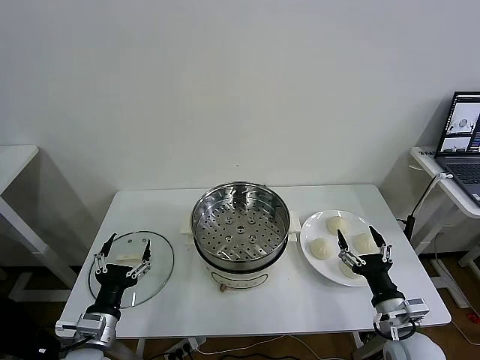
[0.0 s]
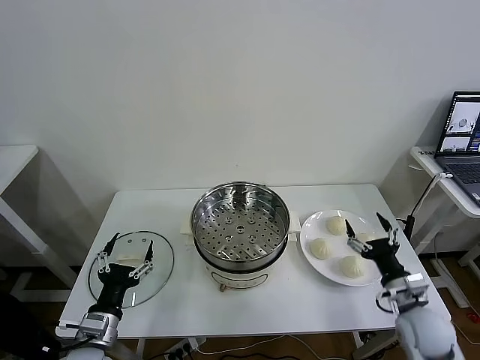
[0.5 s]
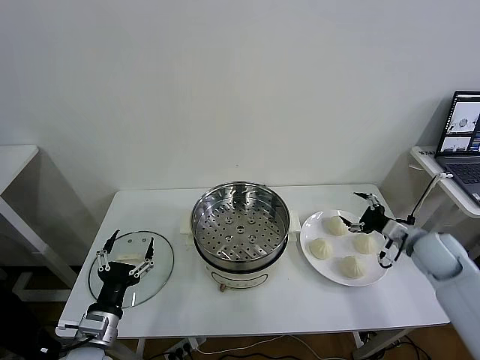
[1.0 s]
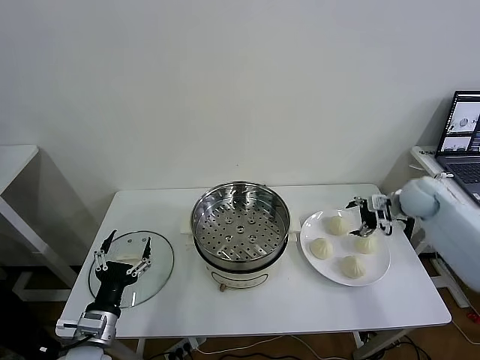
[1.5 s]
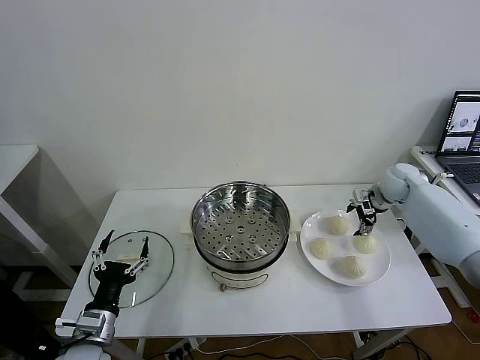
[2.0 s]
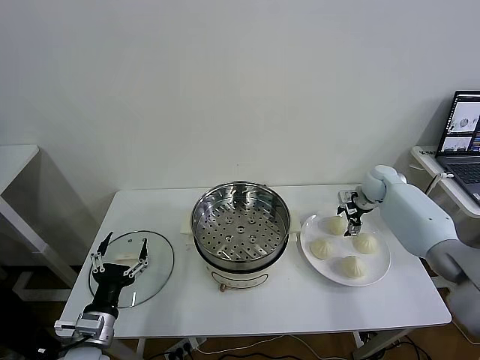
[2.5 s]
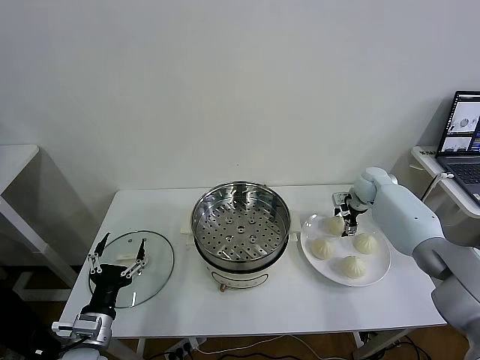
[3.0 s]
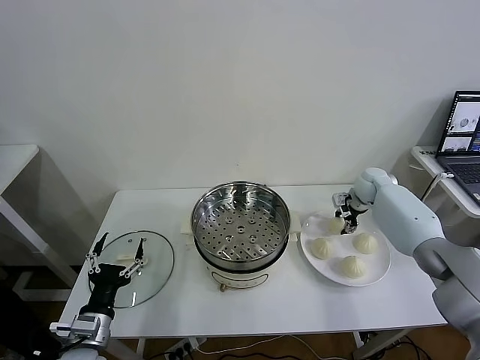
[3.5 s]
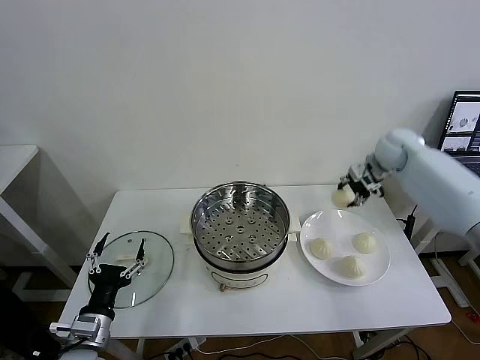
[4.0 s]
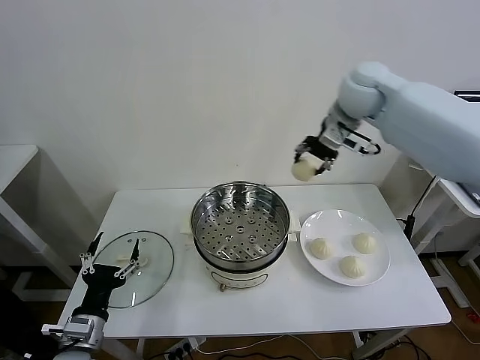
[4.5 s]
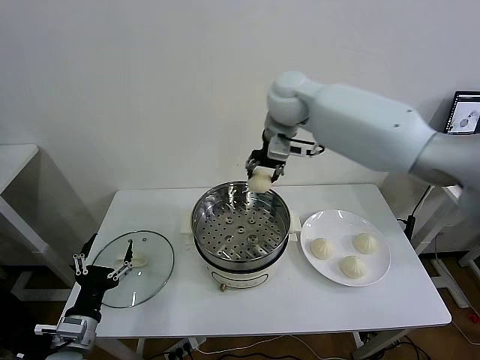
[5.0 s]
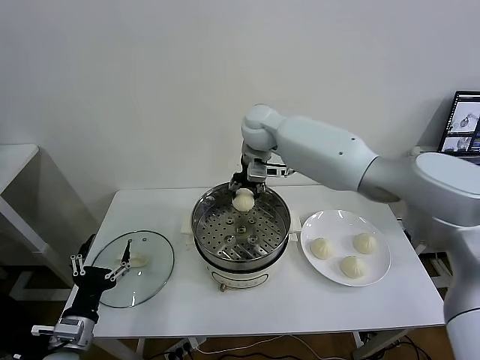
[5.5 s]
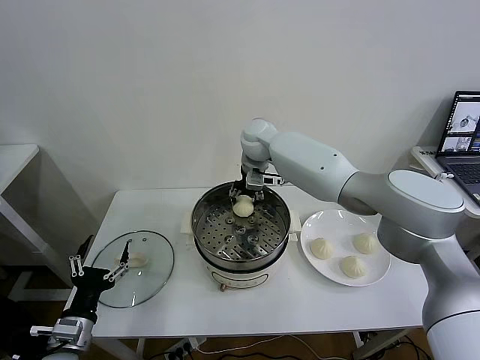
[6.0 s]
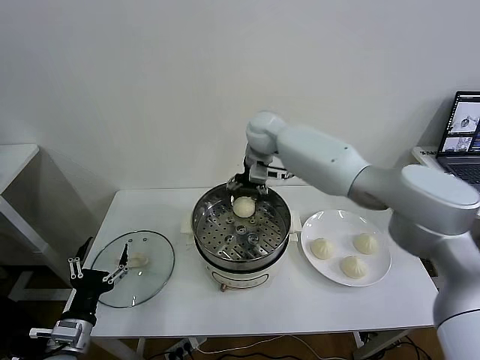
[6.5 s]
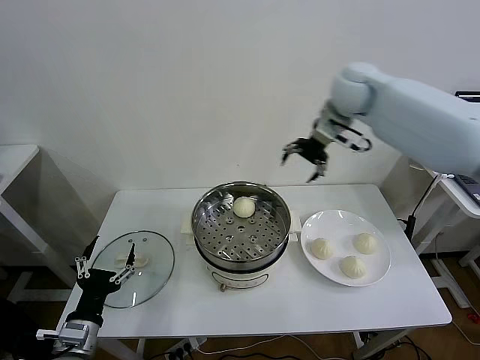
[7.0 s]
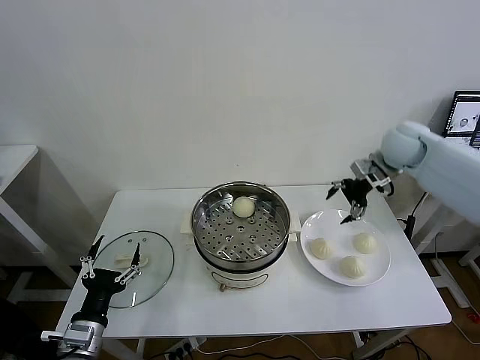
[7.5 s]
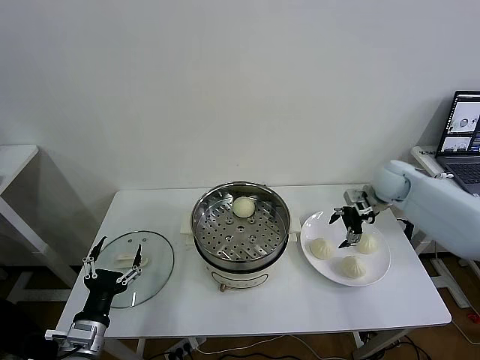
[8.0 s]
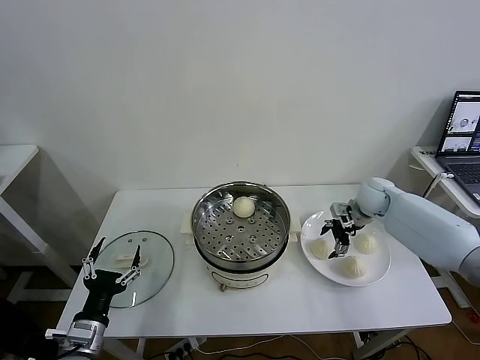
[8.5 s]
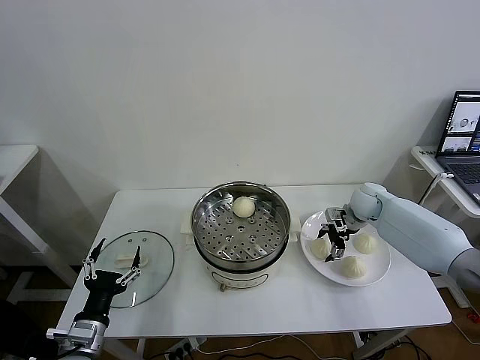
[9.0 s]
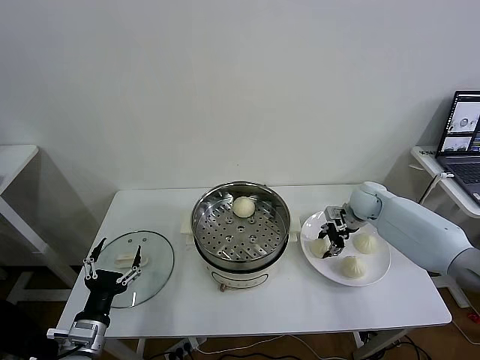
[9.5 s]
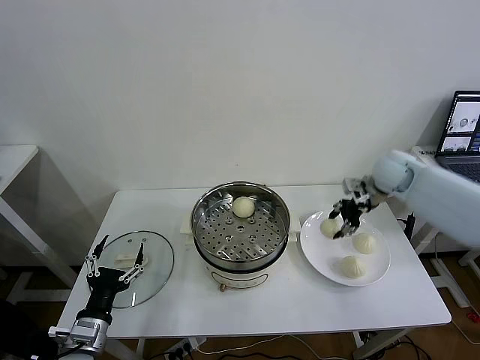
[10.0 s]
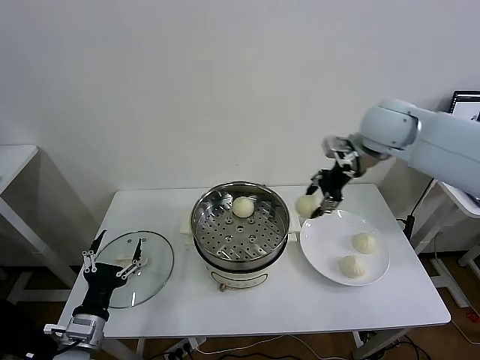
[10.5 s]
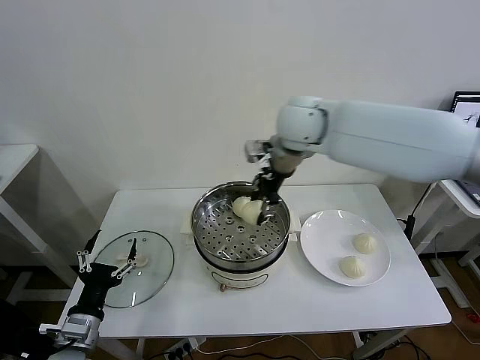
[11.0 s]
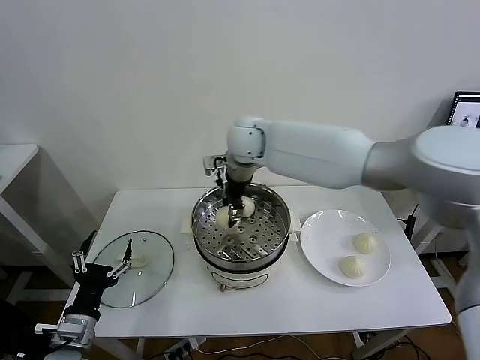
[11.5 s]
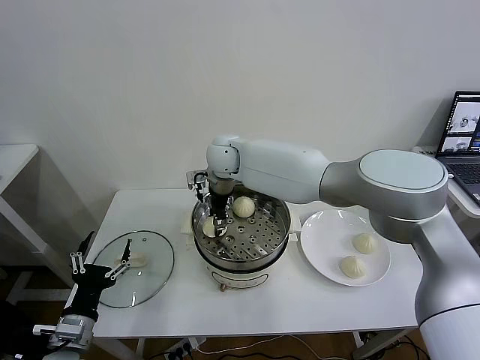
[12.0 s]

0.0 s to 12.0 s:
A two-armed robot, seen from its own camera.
Task of the whole recording: take steamed baozi put them in steamer then cover it.
Step, 0.0 to 3.0 s: Grasp the baozi in the plate with right gripper.
Step, 3.5 to 6.0 s: Place the baozi on the steamer with right gripper.
Step, 6.5 to 9.0 s: Grasp the baozi in the plate with right gripper.
2.0 to 4.0 s: The right gripper shifts roughly 15 cm upward, and closes its fingers.
4.0 to 6.0 s: The right gripper shifts roughly 30 cm to the left.
6.0 to 8.0 s: The right gripper shifts approximately 35 cm to the right, and opens its fingers.
8.0 to 10.0 s: The right gripper goes about 10 cm upward, and closes.
10.0 to 12.0 s: The right gripper goes approximately 40 cm to the left.

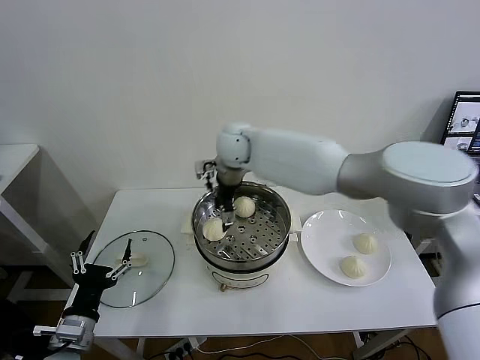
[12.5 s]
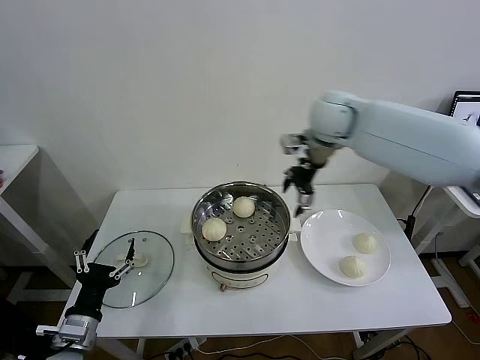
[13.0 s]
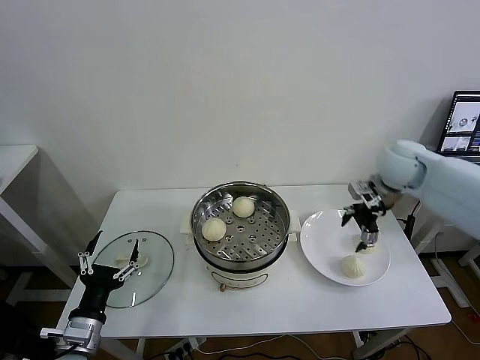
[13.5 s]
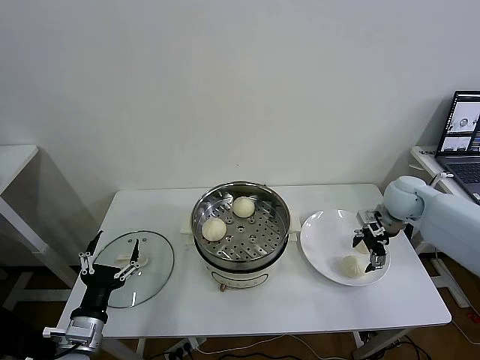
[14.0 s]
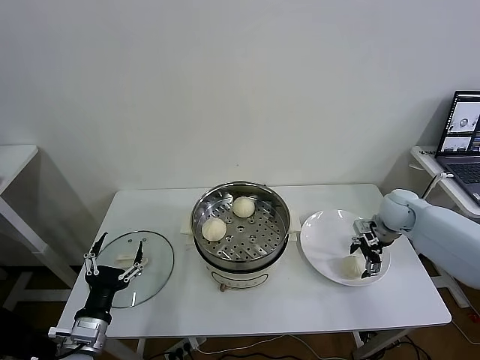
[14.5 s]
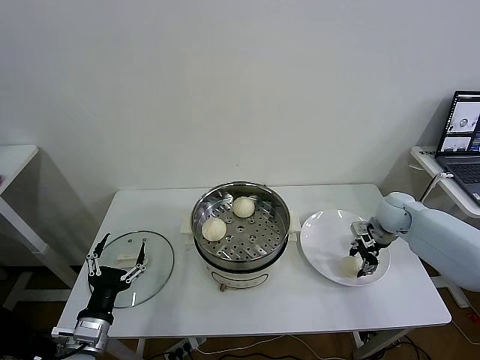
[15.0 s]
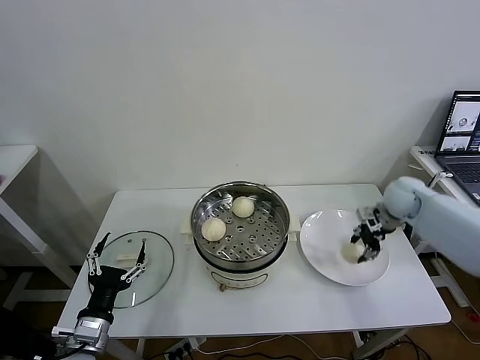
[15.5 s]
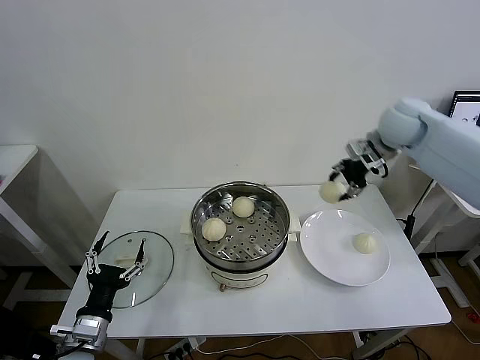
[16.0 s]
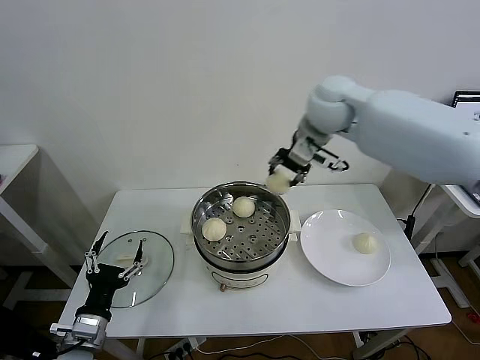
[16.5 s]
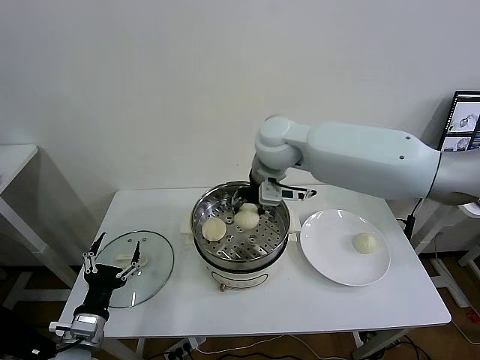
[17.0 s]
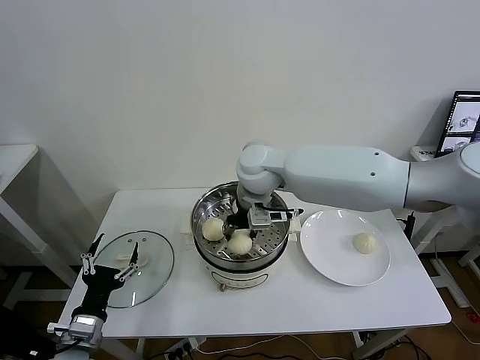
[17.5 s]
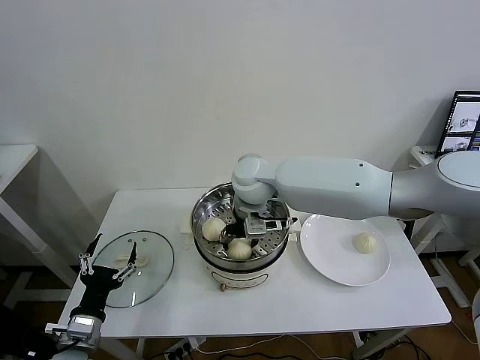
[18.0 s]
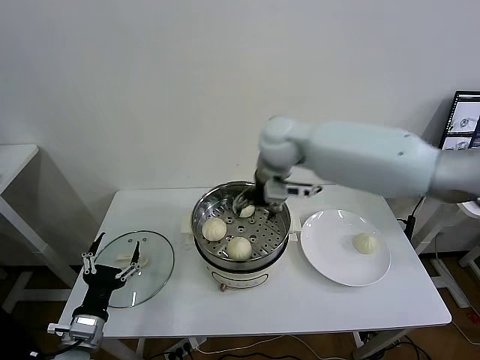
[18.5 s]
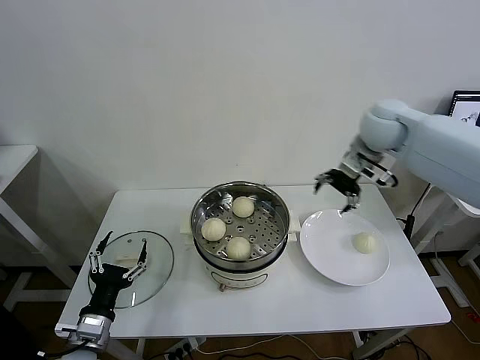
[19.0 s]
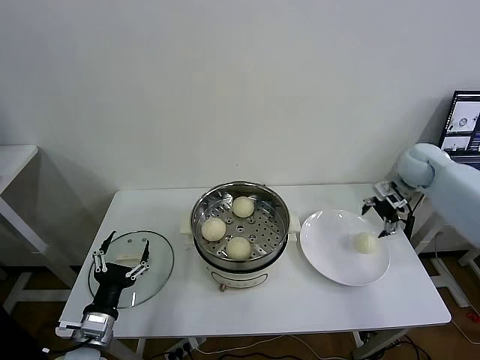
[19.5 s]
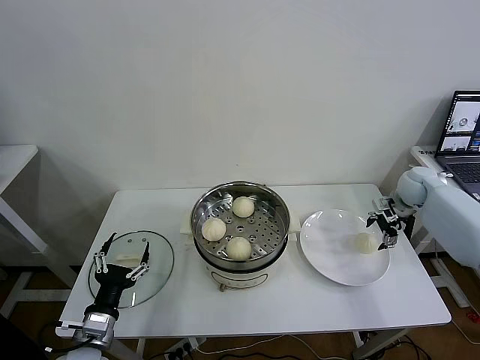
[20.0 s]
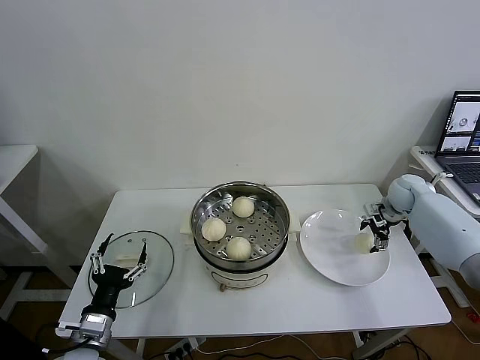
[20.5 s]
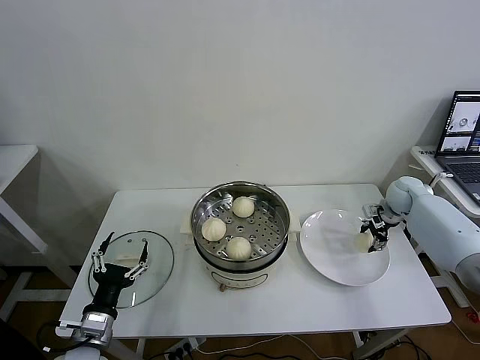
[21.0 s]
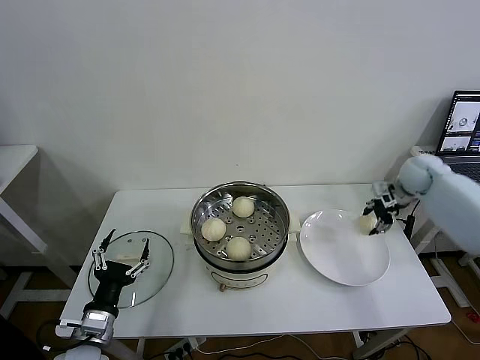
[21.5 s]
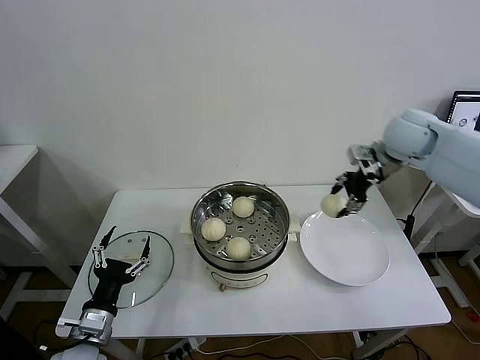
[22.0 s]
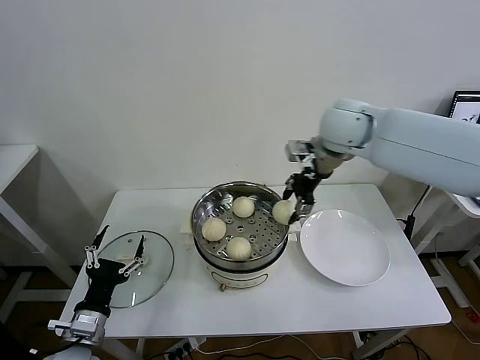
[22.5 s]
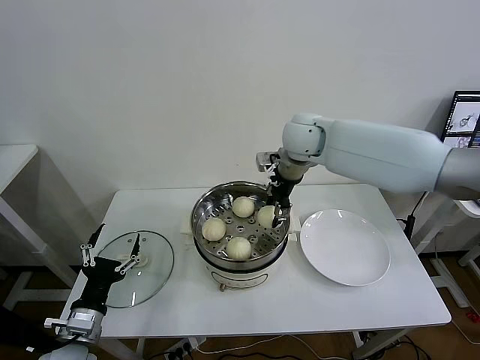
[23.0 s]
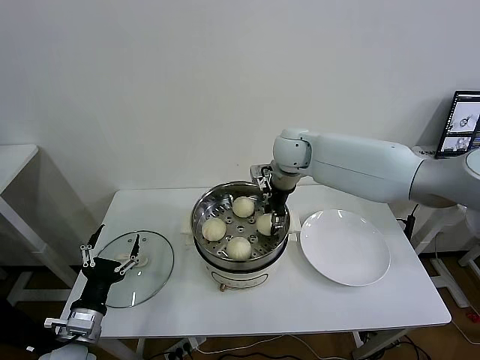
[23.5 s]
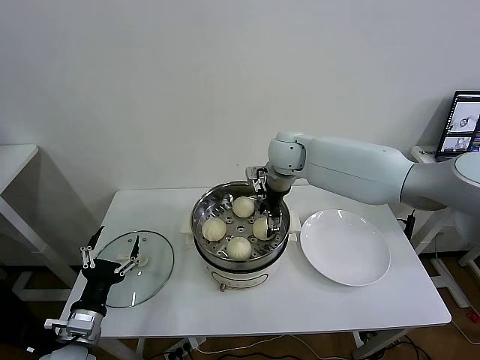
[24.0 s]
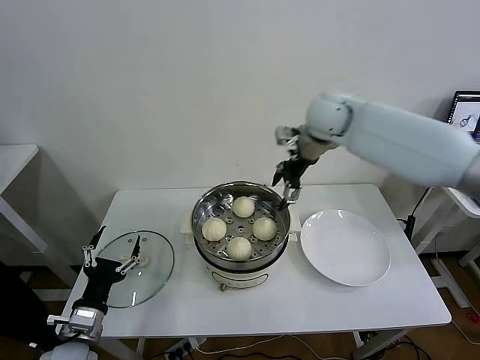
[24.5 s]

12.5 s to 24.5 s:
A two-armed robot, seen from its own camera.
Task of the whole recording: take steamed baozi put them in steamer then cover it.
Step, 12.5 to 15.0 s: Grasp the baozi in the plate with right gripper.
Step, 15.5 to 18.0 s: Place the baozi on the steamer with right gripper.
Step, 18.5 to 20.5 s: Grasp the baozi in the plate with right gripper.
Step, 21.0 to 24.0 s: Place the baozi on the steamer with right gripper.
12.5 to 14.5 s: The right gripper moves to the right and downward, approximately 40 cm.
14.5 to 16.5 s: The right gripper travels upward and to the left by approximately 35 cm, and closes up.
16.5 to 18.5 s: The right gripper shifts some 10 cm to the left and downward, and opens up.
18.5 to 20.5 s: The right gripper travels to the right and downward by roughly 40 cm.
20.5 to 22.5 s: The right gripper is displaced to the left and upward by approximately 35 cm, and closes its fingers.
22.5 to 24.5 s: The right gripper travels downward and back again, approximately 10 cm each way, and opens up.

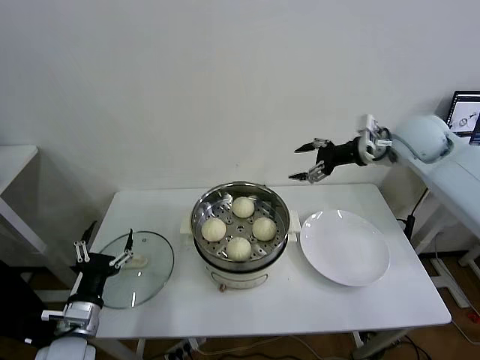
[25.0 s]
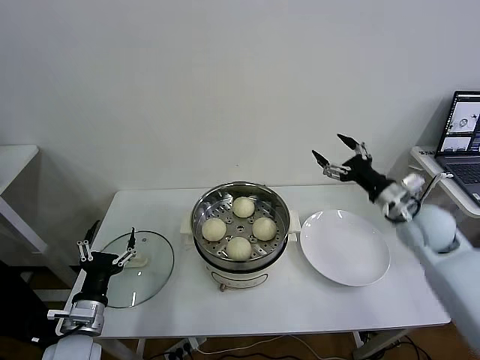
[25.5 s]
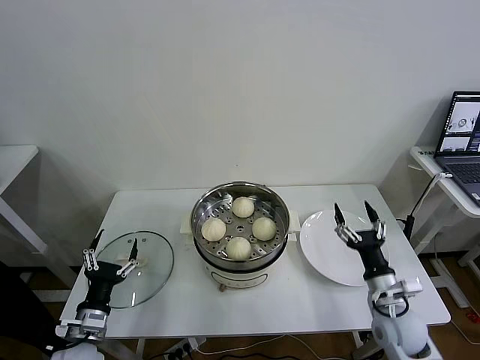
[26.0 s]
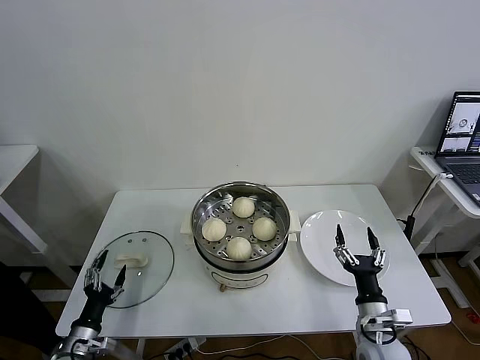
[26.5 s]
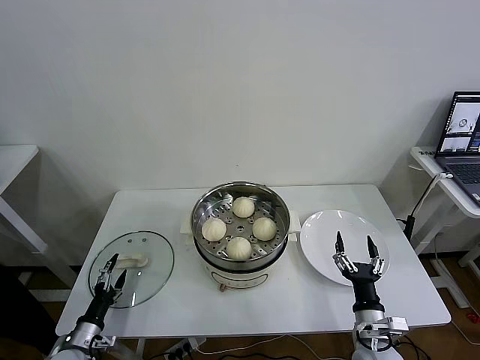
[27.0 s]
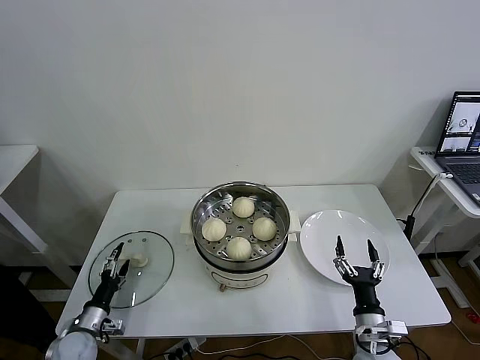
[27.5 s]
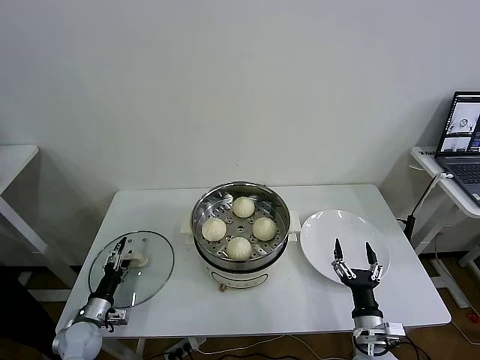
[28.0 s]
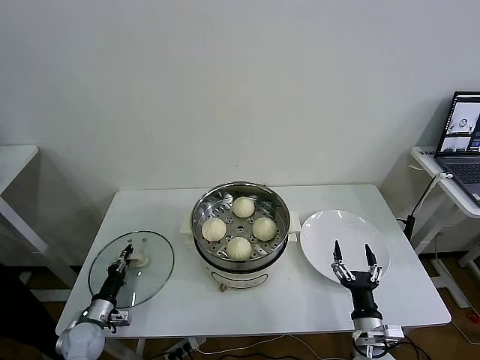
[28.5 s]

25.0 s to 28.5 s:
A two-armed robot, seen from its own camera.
Task of the whole recording: take steamed baozi put them in steamer then cover it.
25.0 to 27.0 s: The right gripper goes approximately 50 cm downward and backward. The left gripper goes roughly 20 cm downward and to the left.
27.0 to 28.5 s: The left gripper is displaced forward by about 5 cm, and closes.
